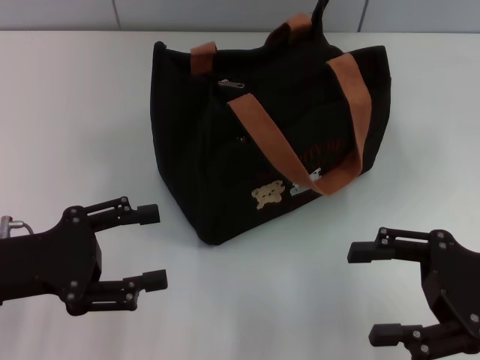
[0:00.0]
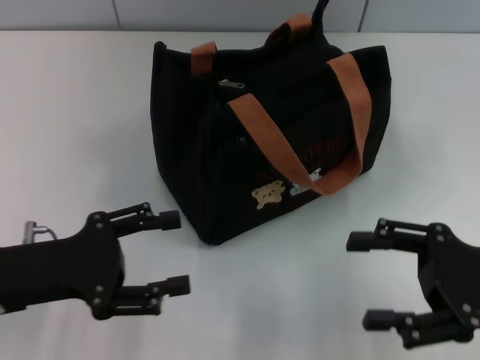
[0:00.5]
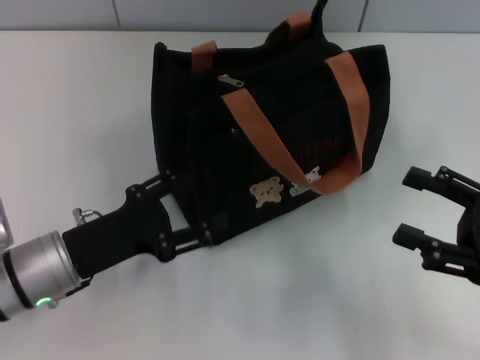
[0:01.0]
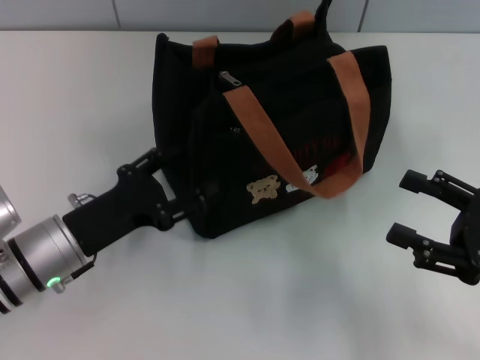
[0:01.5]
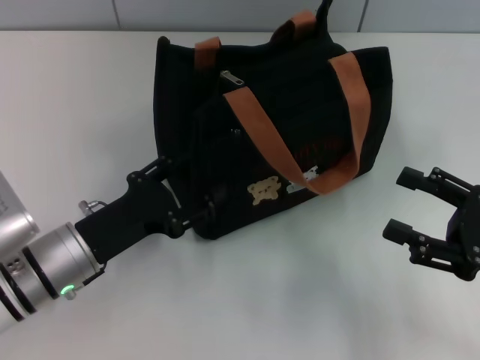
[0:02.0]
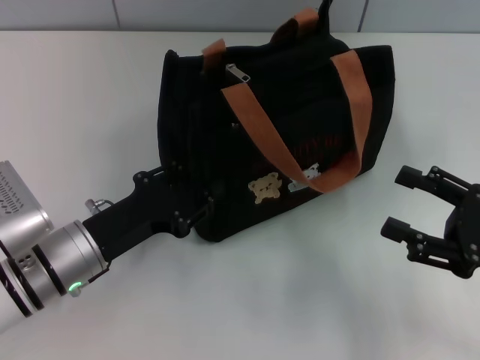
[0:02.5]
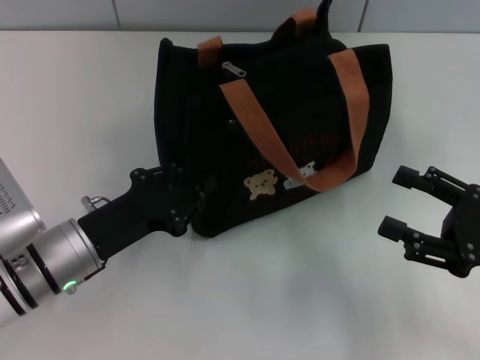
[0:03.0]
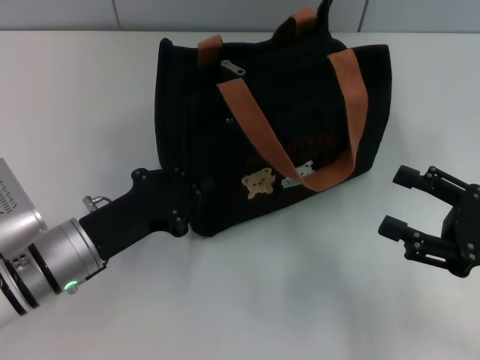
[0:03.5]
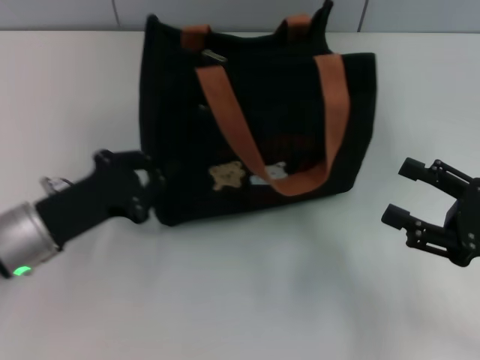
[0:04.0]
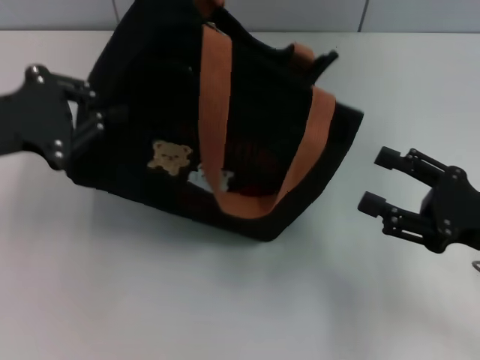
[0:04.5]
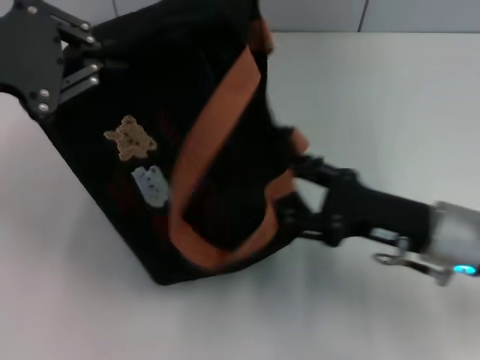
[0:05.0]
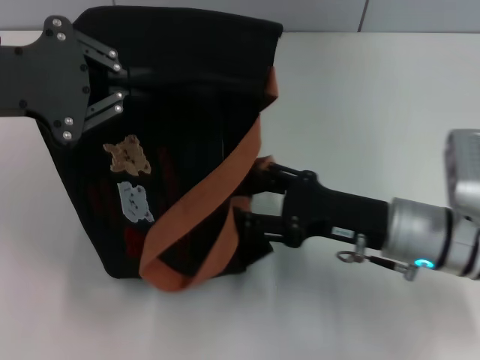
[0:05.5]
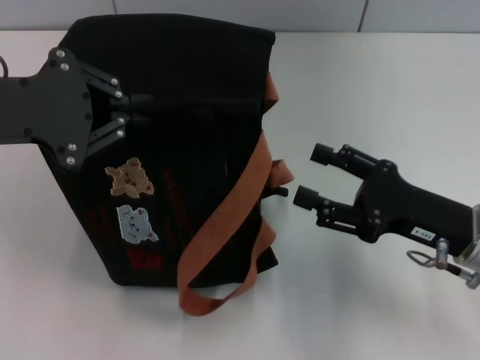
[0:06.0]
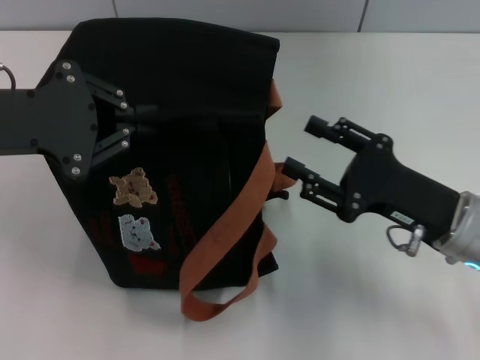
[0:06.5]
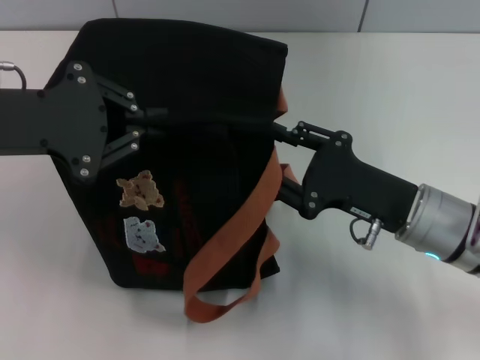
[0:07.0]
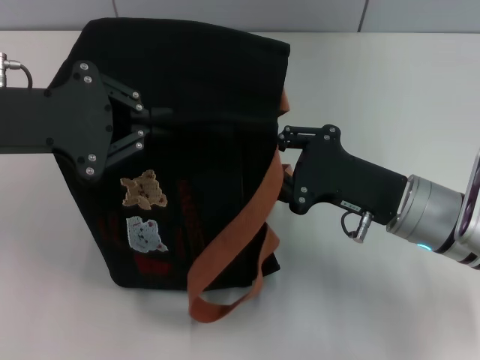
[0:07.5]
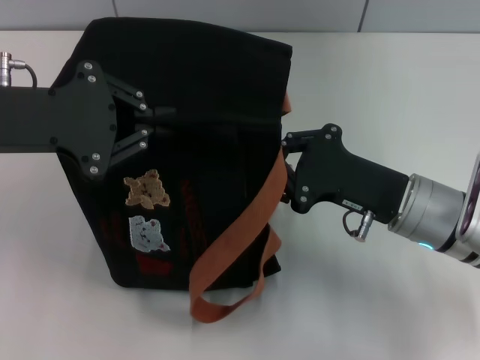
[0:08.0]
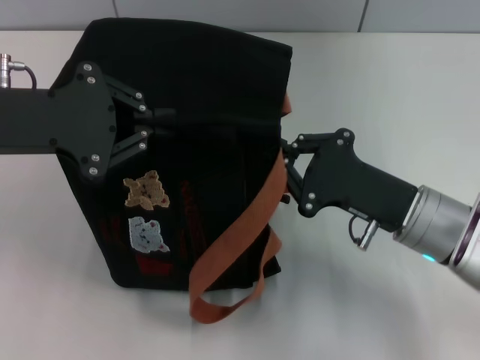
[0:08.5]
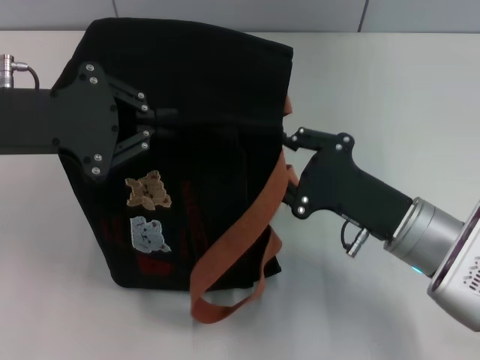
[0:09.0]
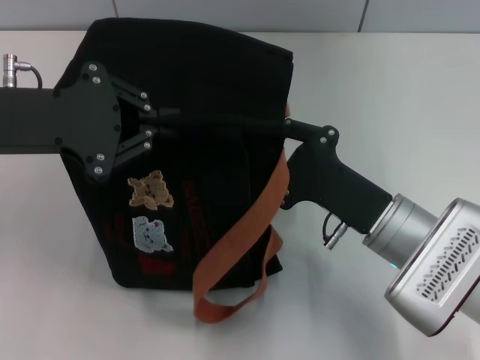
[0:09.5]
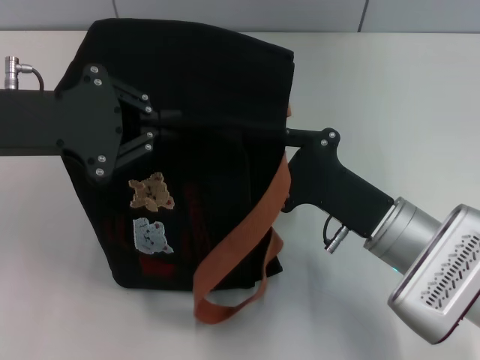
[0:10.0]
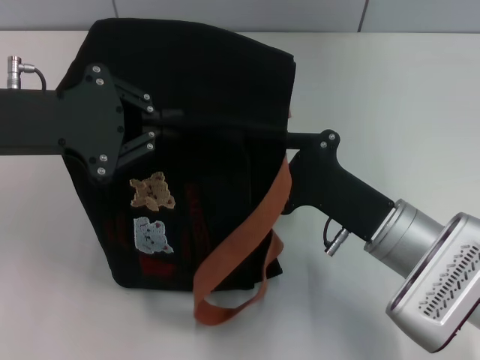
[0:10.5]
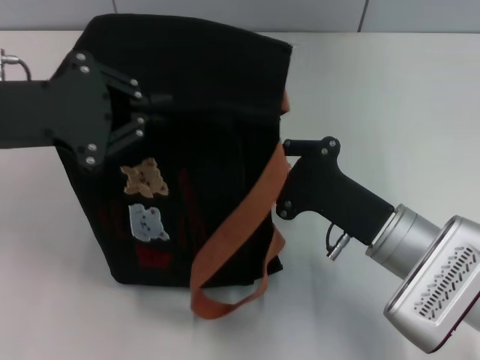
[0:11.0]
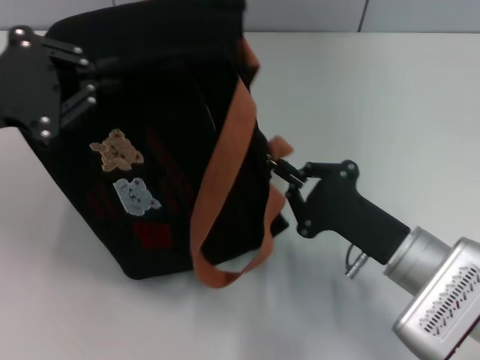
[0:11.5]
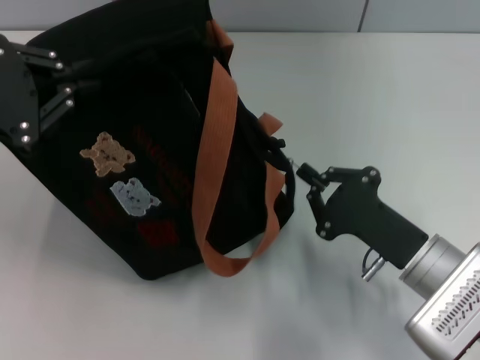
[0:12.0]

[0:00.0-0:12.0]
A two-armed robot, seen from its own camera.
0:00.0 to 0:02.0: The left gripper is displaced to the right and downward by approximately 10 cm.
0:02.0 to 0:04.0: The left gripper closes.
0:04.0 to 0:06.0: The left gripper travels upward by about 15 cm, while the right gripper travels to the left by roughly 5 cm.
0:06.0 to 0:08.0: The right gripper is displaced to the left by roughly 5 cm, and closes.
0:10.0 to 0:12.0: The left gripper is displaced to the left by about 5 cm. The right gripper shifts by approximately 5 cm.

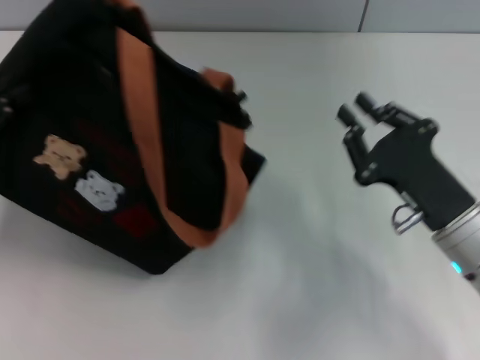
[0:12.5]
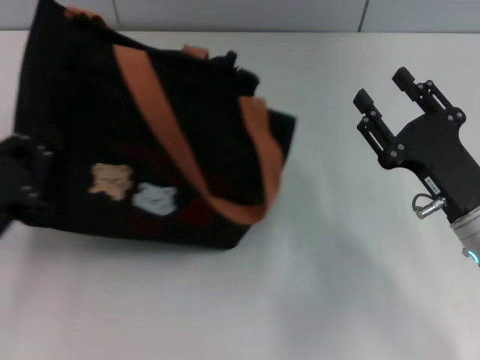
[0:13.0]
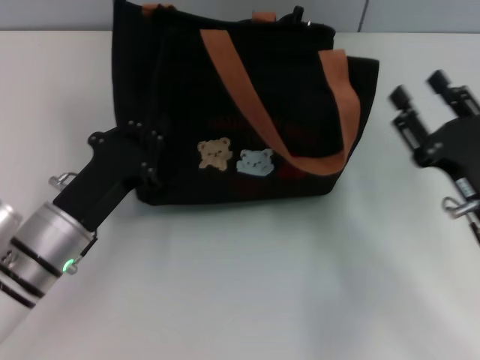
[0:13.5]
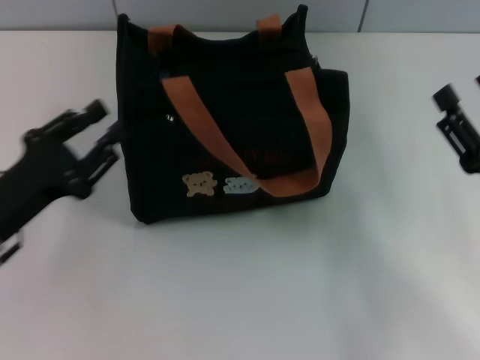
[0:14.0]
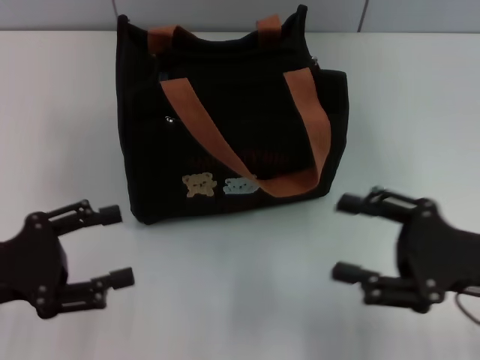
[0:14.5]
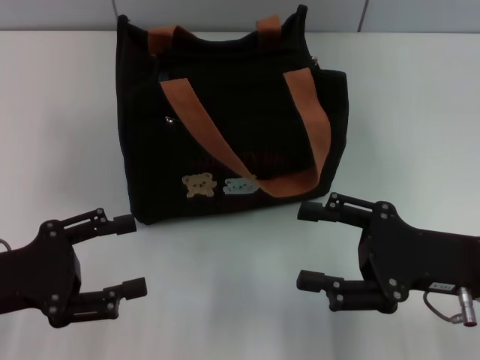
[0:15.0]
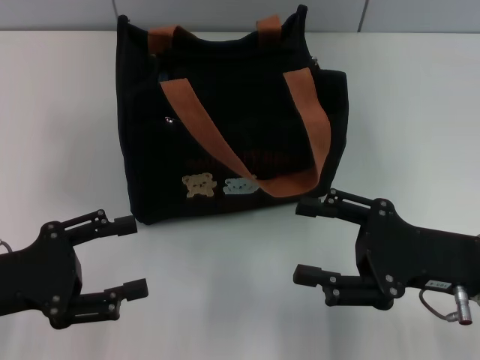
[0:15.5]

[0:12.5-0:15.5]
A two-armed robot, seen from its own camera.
Step, 0:12.5 to 0:13.5: Grab the bag with your left hand.
0:12.5 to 0:14.0: The left gripper travels to the right and downward by about 10 cm. Meanwhile the right gripper travels to the right by some 5 cm, and opens.
0:14.0 to 0:15.5: The left gripper opens up.

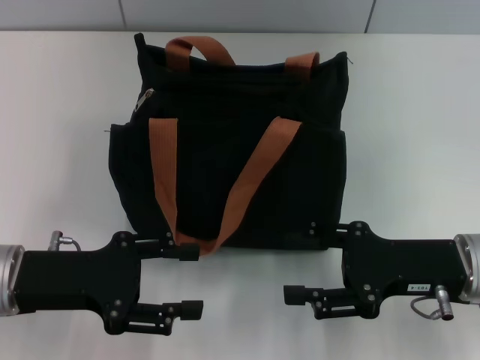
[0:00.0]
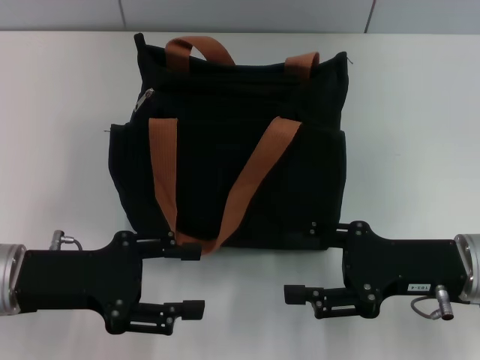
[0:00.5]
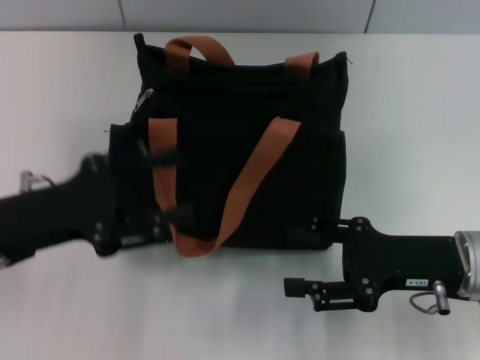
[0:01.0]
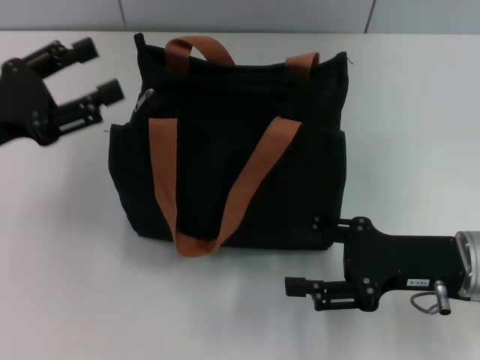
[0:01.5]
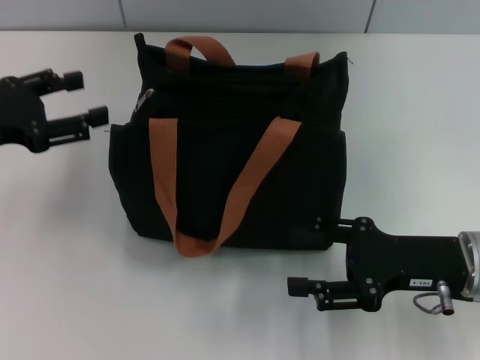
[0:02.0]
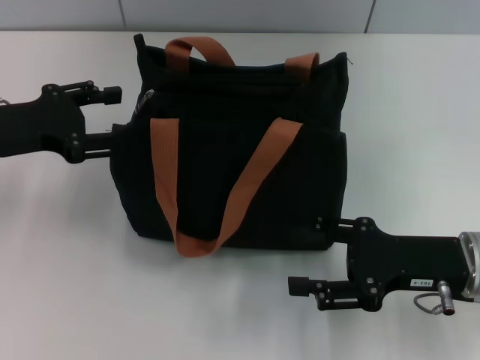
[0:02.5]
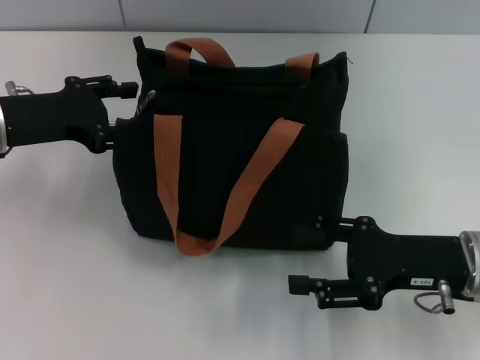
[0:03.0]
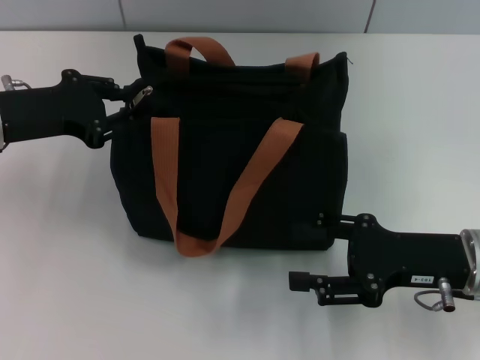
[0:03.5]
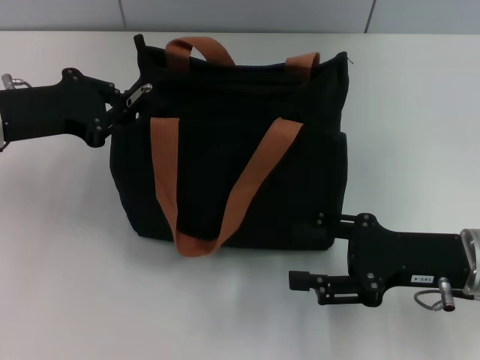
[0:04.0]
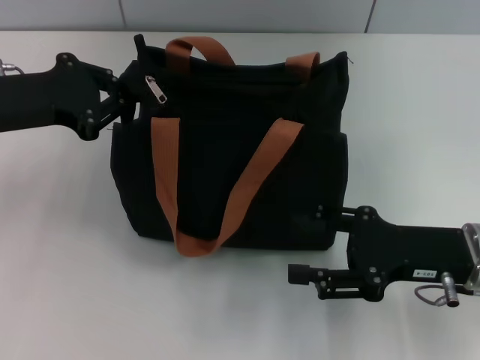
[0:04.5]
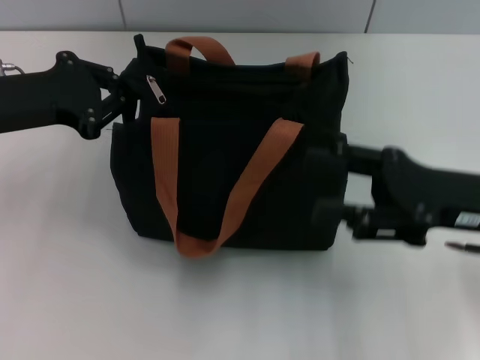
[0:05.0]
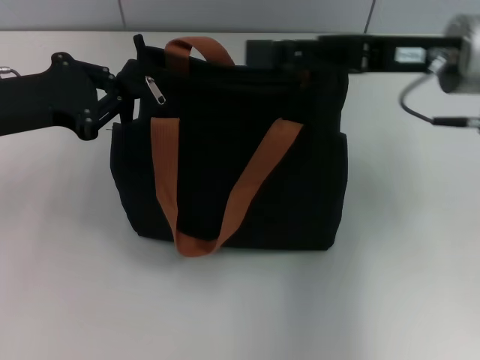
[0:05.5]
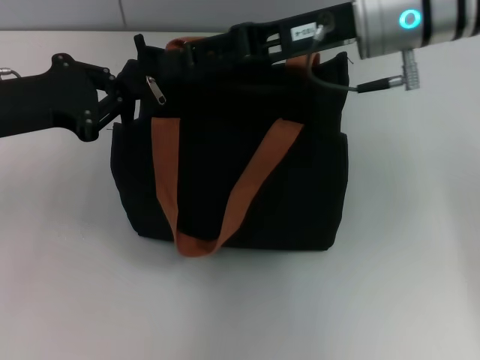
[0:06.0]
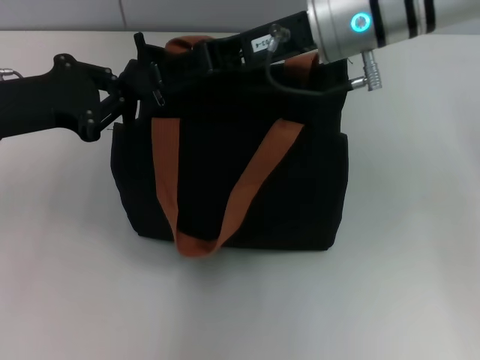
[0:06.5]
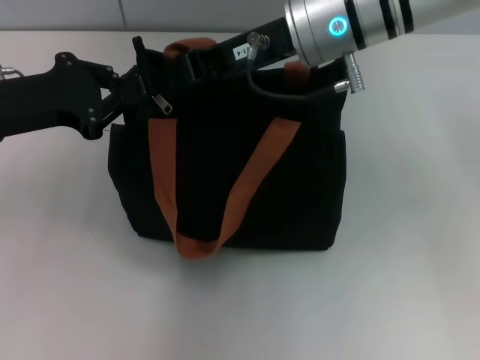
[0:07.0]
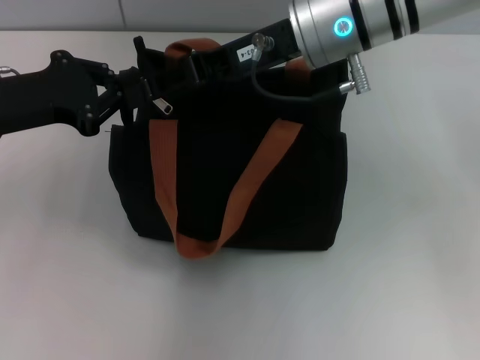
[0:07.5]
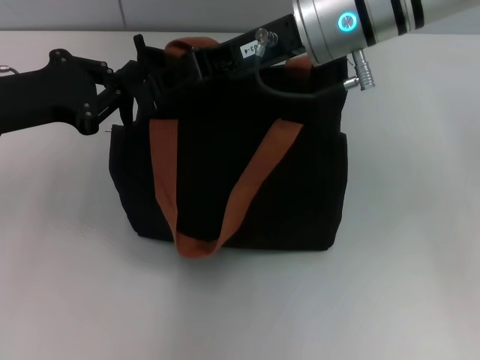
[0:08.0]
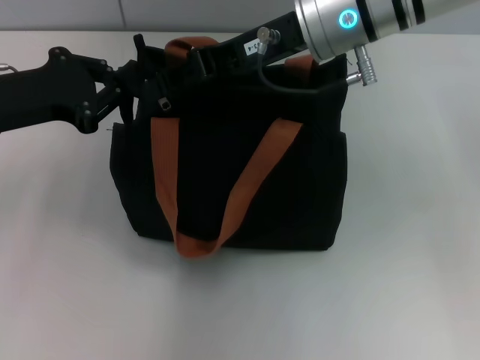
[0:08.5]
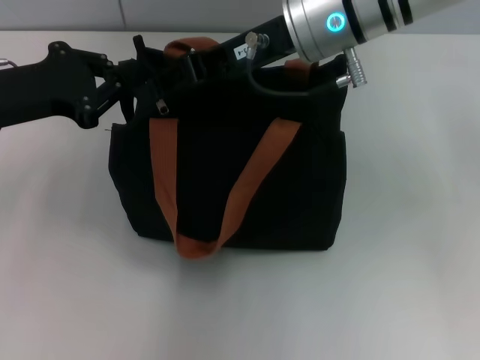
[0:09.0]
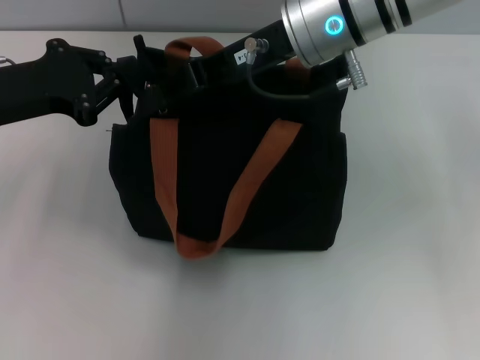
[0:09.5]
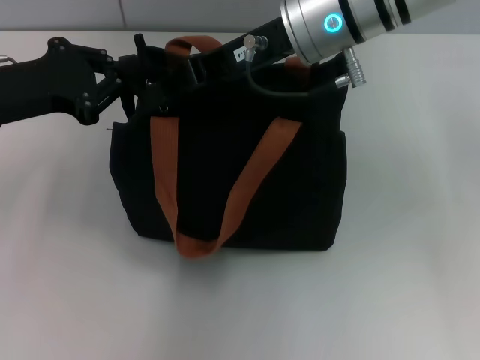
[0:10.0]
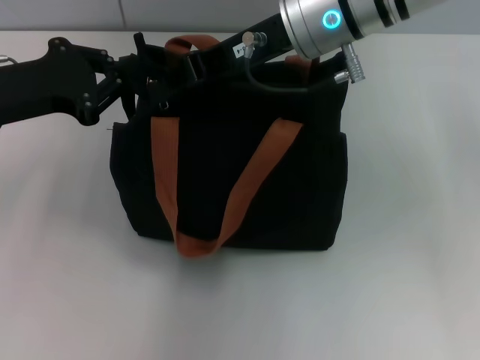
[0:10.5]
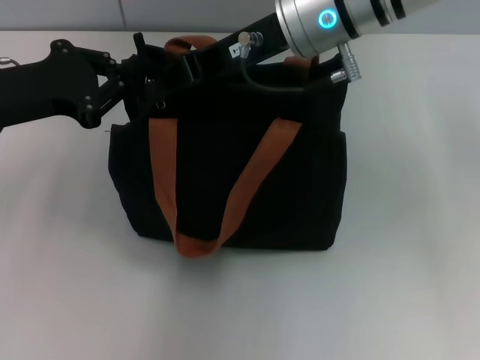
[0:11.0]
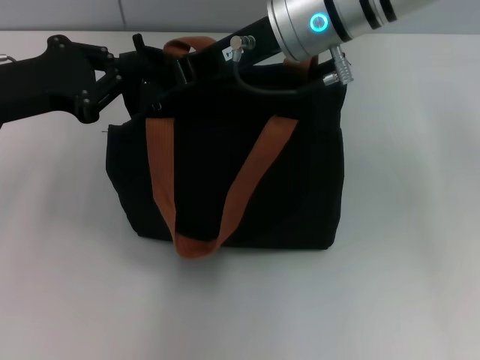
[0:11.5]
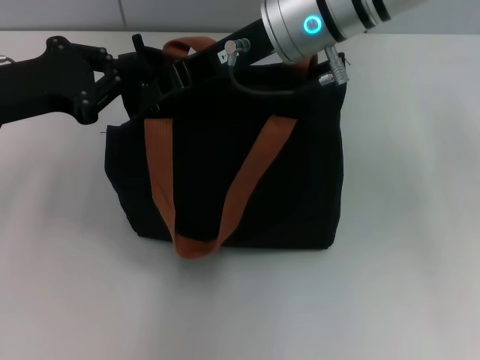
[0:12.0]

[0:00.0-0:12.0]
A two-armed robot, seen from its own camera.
0:00.0 to 0:02.0: The left gripper travels forward, to the left and upward by approximately 10 cm.
0:02.0 to 0:04.0: The left gripper moves some 5 cm, and closes up.
0:04.0 to 0:06.0: The right gripper travels upward, forward and to the left by roughly 25 cm.
0:06.0 to 0:08.0: The right gripper closes.
0:08.0 to 0:12.0: The grippers stay close to where they were, moving slightly.
